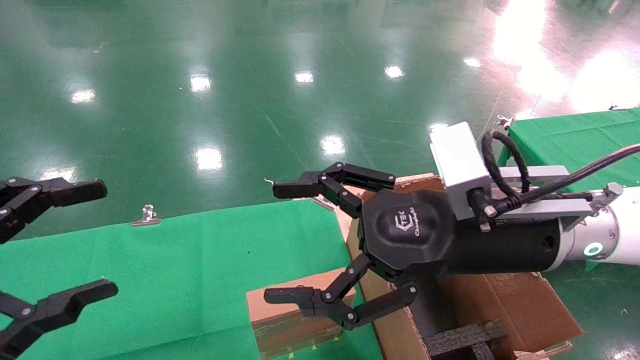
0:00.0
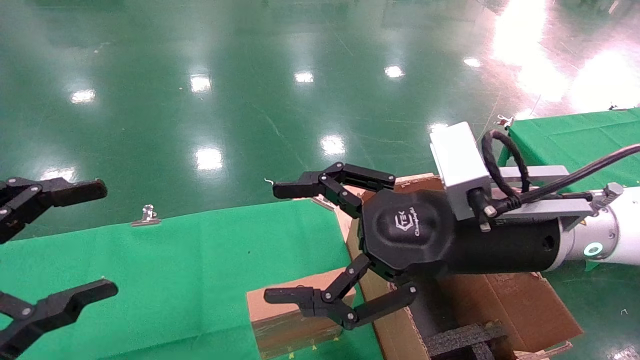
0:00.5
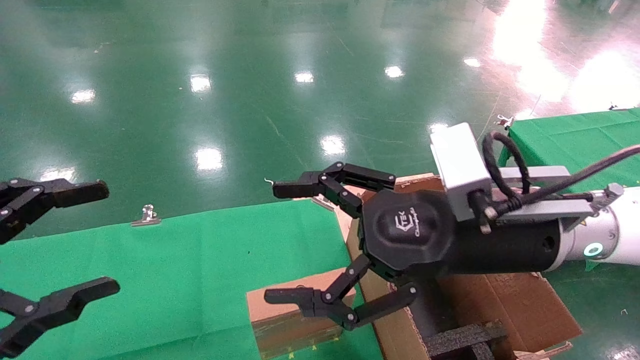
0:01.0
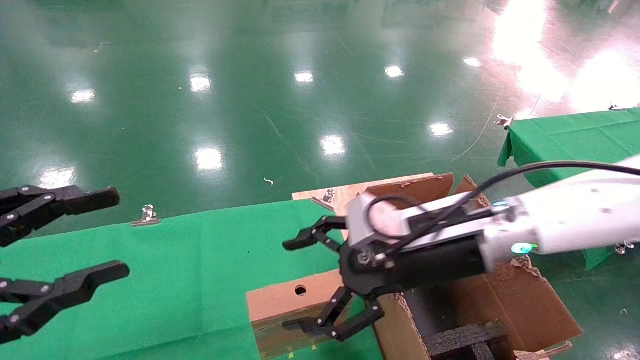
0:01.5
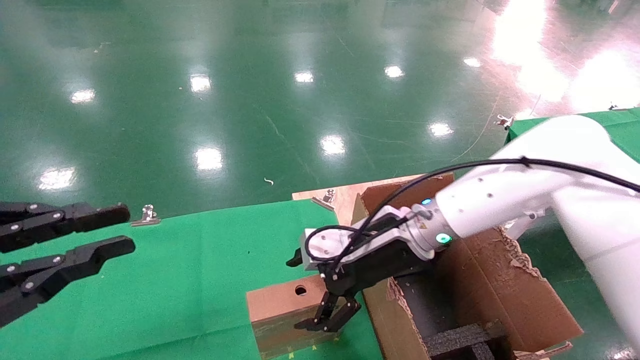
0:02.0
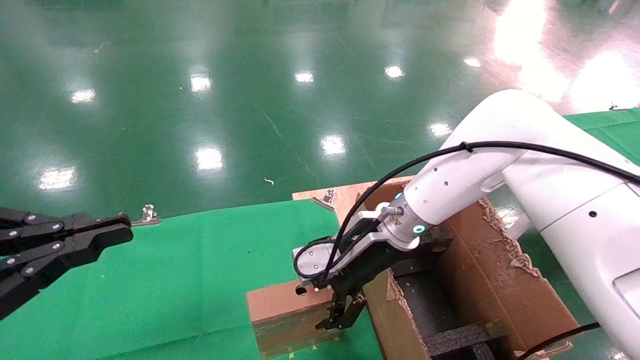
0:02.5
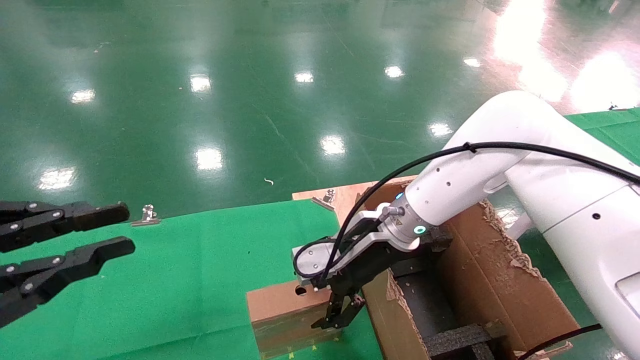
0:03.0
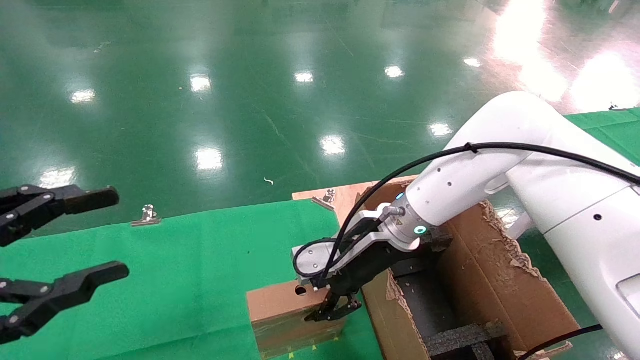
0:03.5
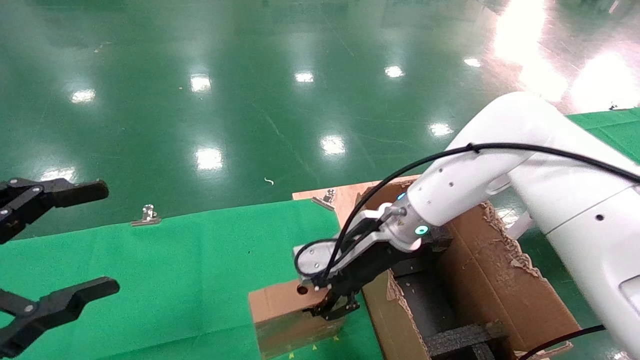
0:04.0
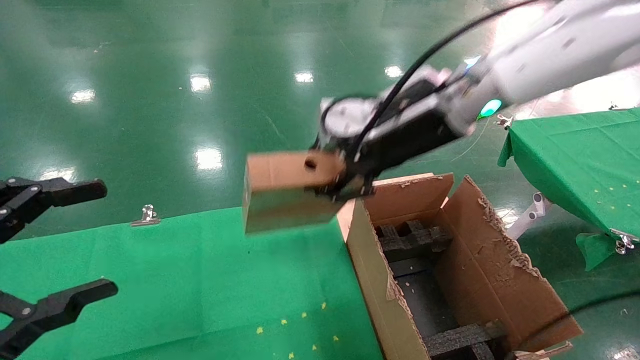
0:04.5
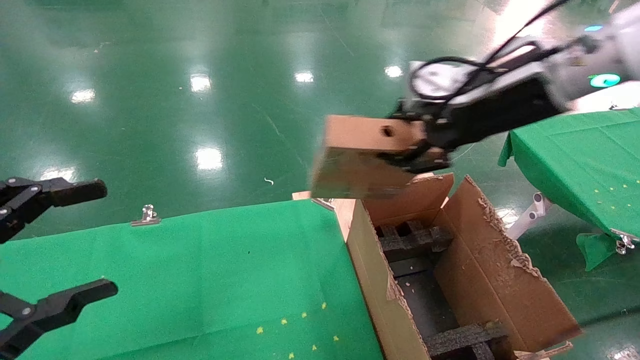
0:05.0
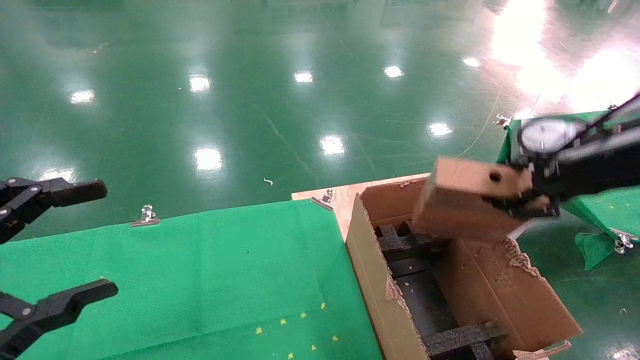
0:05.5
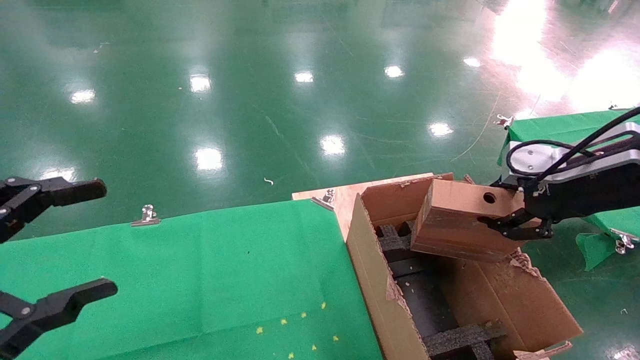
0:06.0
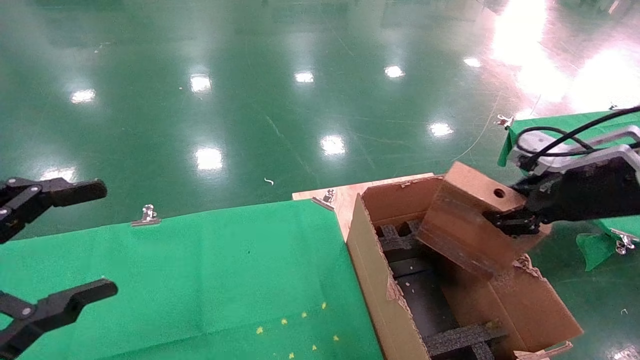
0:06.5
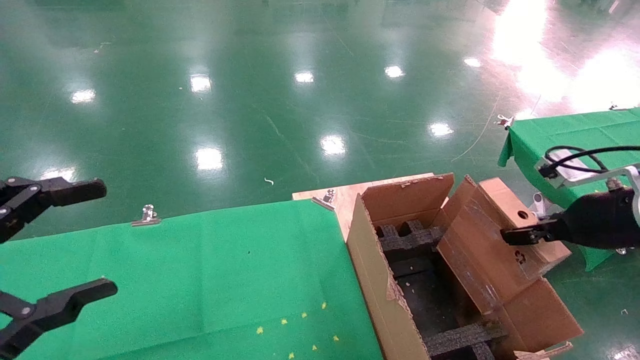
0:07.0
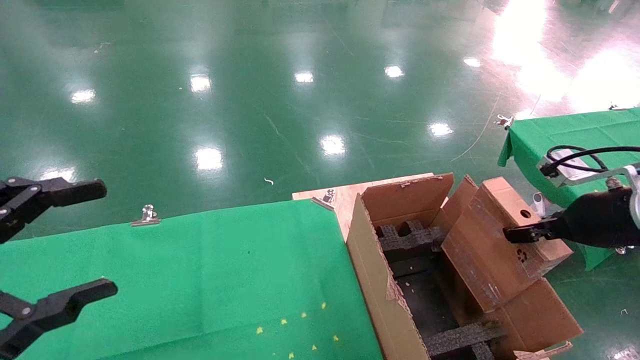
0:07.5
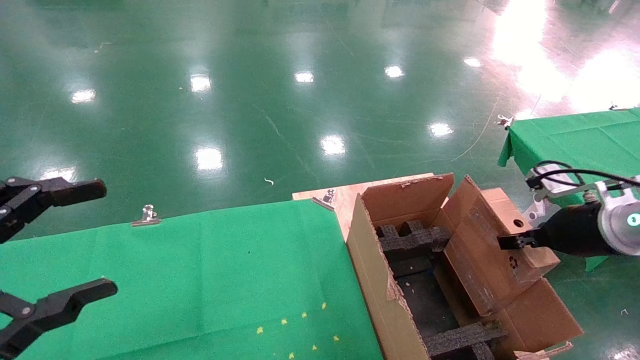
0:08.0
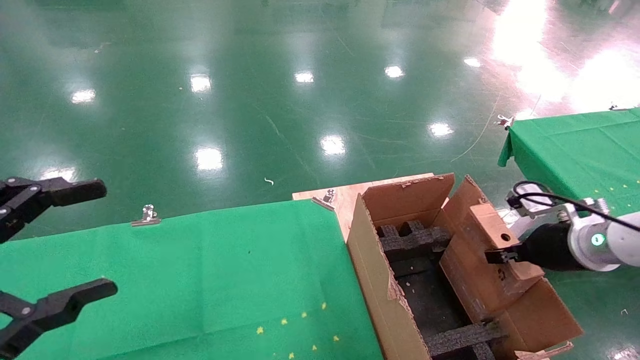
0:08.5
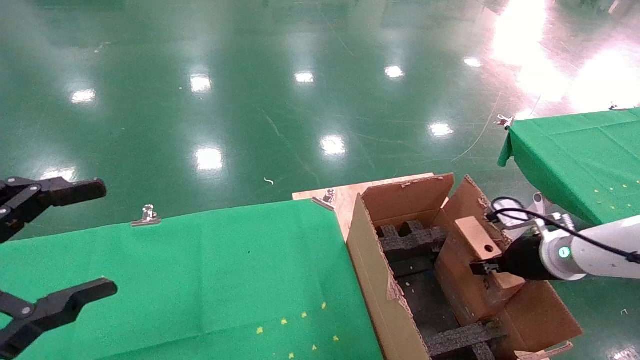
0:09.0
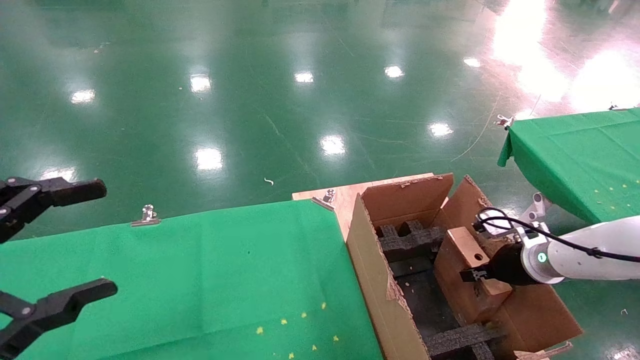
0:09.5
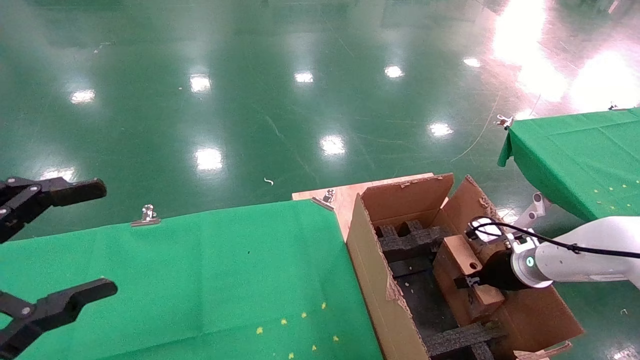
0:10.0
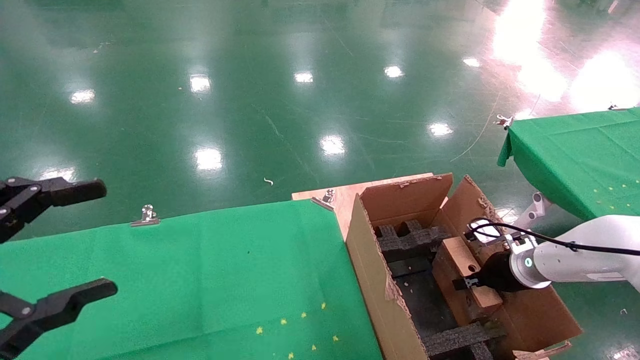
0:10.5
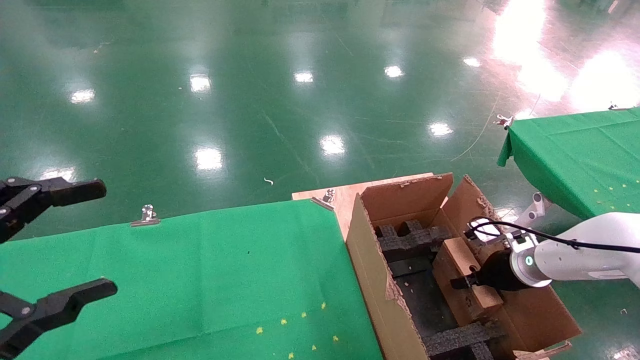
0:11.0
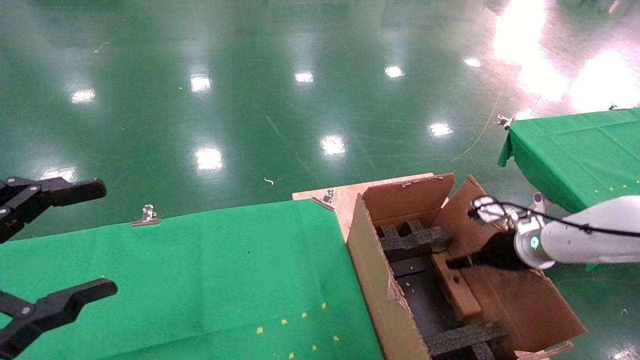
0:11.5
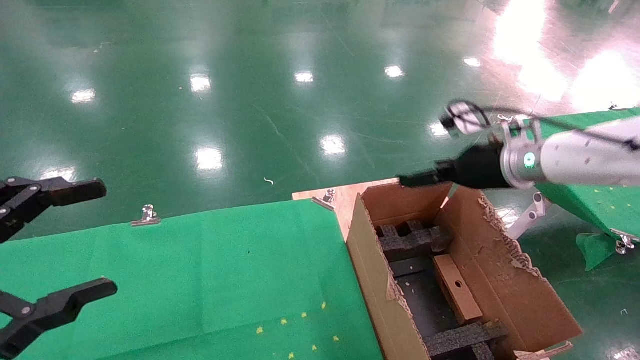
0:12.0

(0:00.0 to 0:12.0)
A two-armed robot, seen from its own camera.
Task of the whole recording: using a robotic arm to pick up a cardboard box and palace it the carton.
Step, 0:01.5 - 0:03.5: Pick up the mouse and the power cord paper box.
Step, 0:04.0 - 0:11.5: Place the mouse and the power cord paper box into the container.
0:00.0 - 0:02.0: The left gripper closes its fingers; the right gripper shifts some 15 cm forward and downward.
0:02.0 - 0:04.0: The right gripper closes, while the left gripper opens up.
0:04.0 - 0:06.0: The right gripper goes approximately 25 cm to the right and backward.
0:06.0 - 0:08.0: The right gripper is displaced downward by some 10 cm.
0:08.0 - 0:10.0: The right gripper heads downward and forward, covering some 15 cm.
0:10.0 - 0:12.0: The right gripper travels upward and to the left by approximately 20 cm, and opens up.

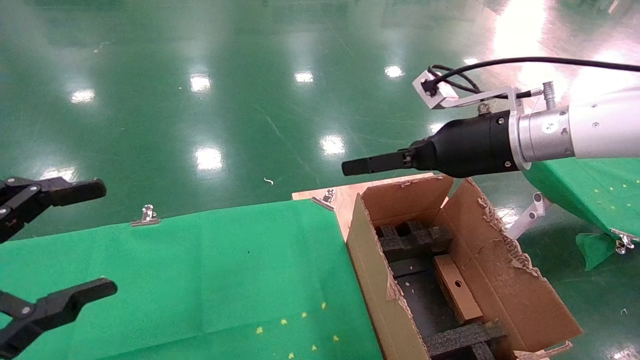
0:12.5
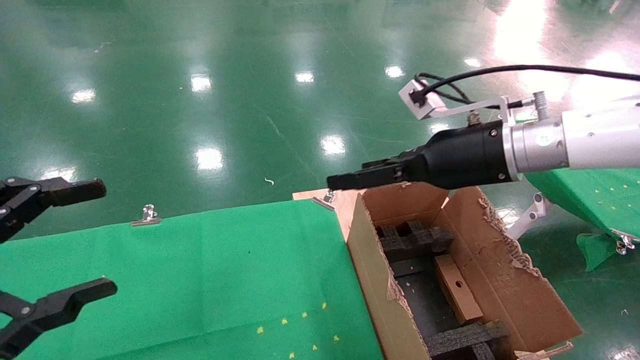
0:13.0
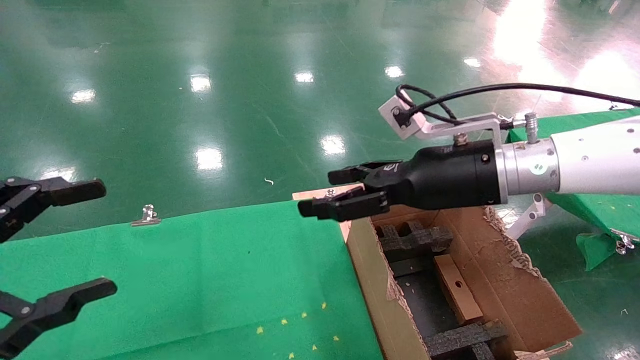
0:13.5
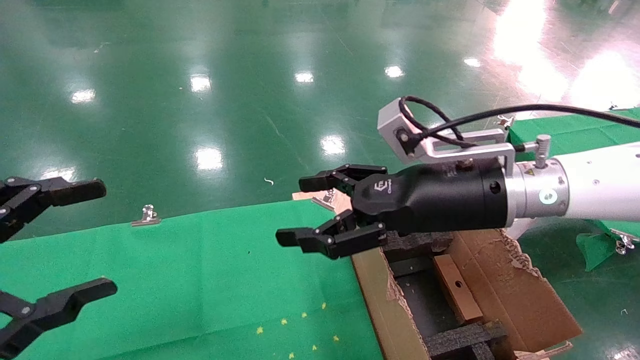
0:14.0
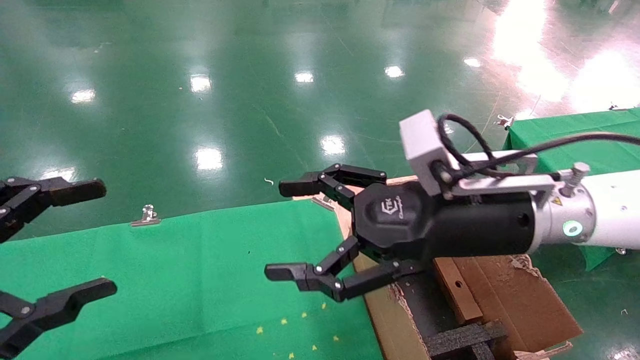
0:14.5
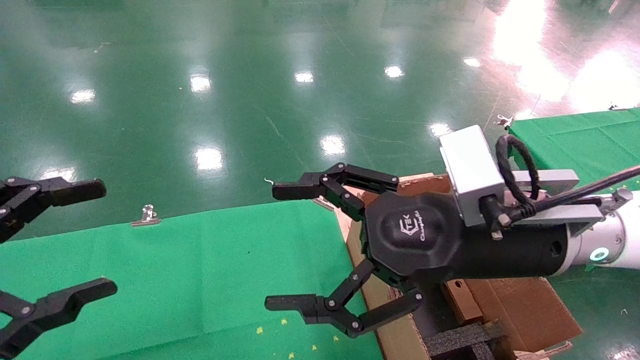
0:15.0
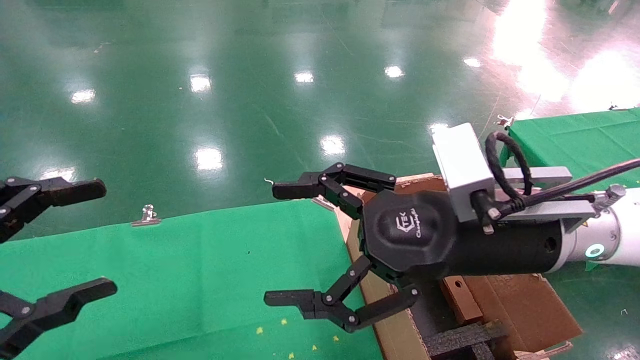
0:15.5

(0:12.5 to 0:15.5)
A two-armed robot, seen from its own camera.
Task of the whole recording: using a robotic arm to pick up a cardboard box and palace it the carton.
0:12.5 - 0:14.0: The right gripper heads to the left and backward, covering approximately 10 cm.
0:14.0 - 0:15.5: The right gripper shifts roughly 5 cm backward.
